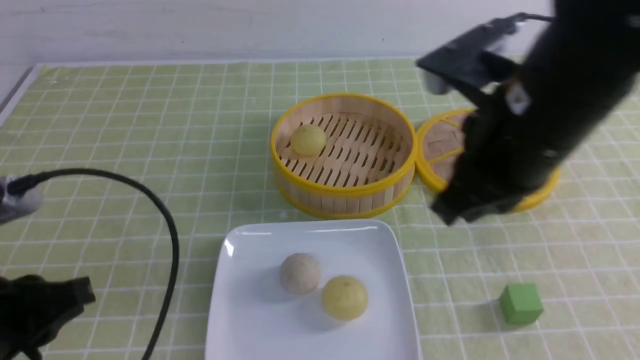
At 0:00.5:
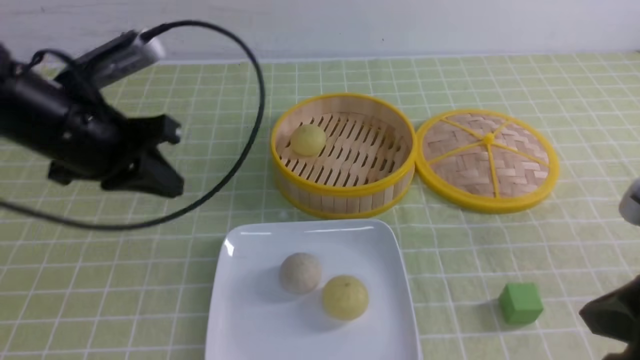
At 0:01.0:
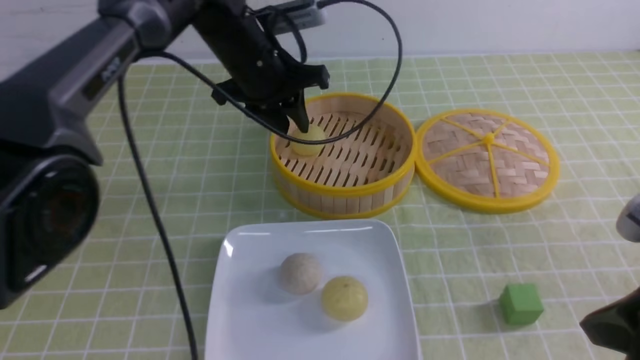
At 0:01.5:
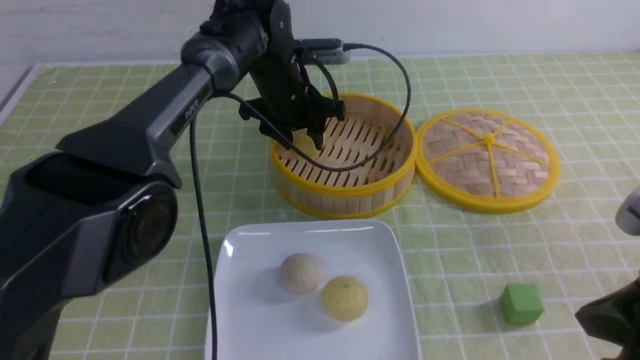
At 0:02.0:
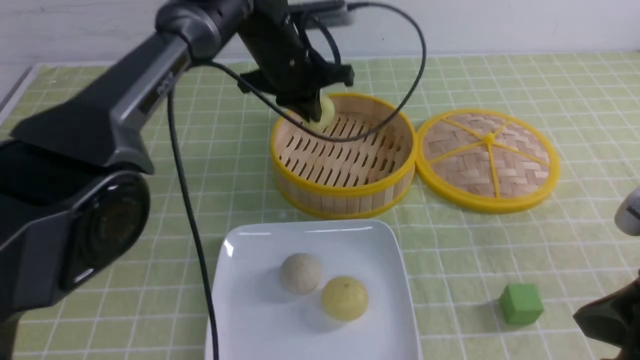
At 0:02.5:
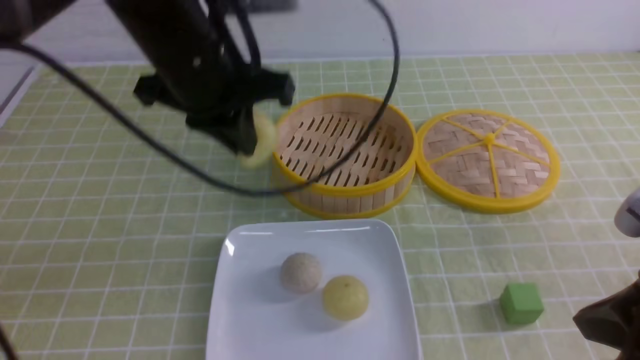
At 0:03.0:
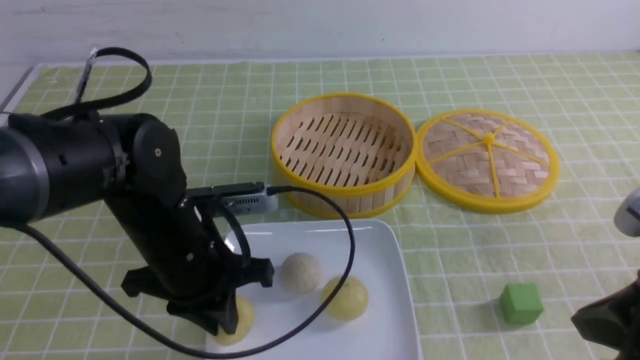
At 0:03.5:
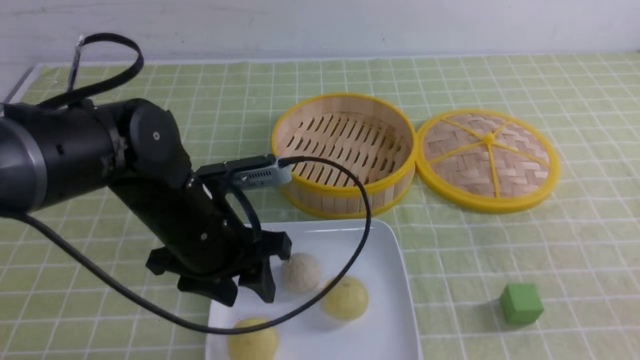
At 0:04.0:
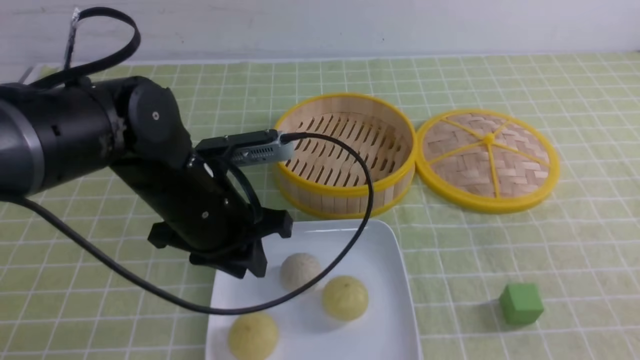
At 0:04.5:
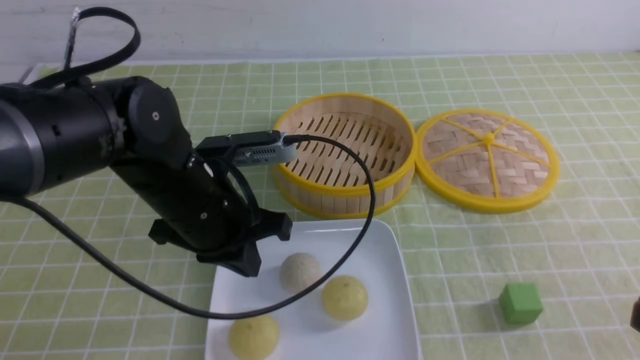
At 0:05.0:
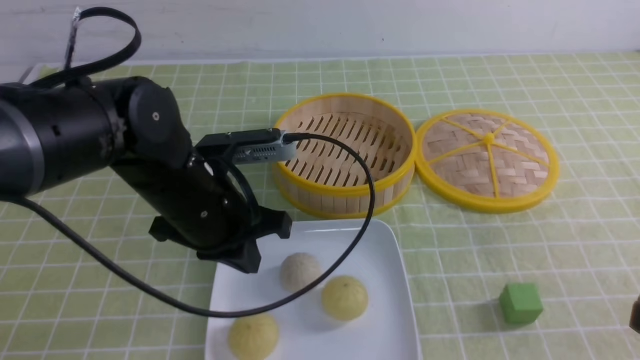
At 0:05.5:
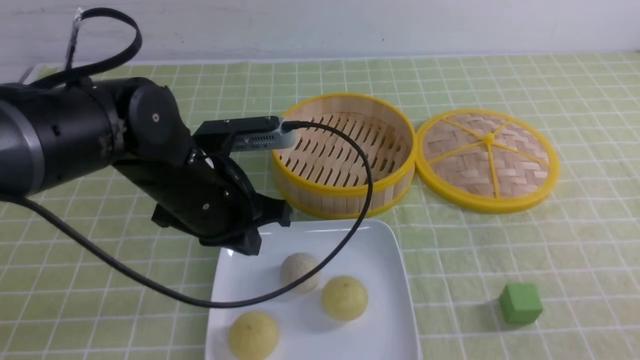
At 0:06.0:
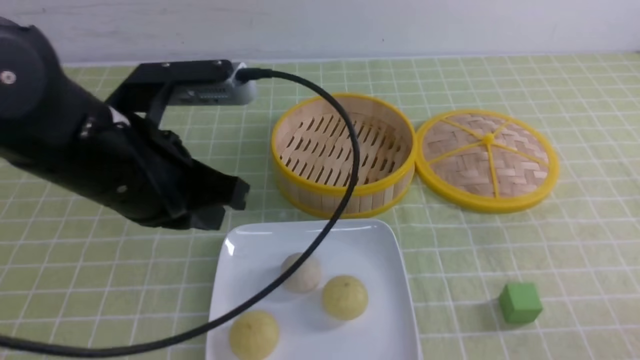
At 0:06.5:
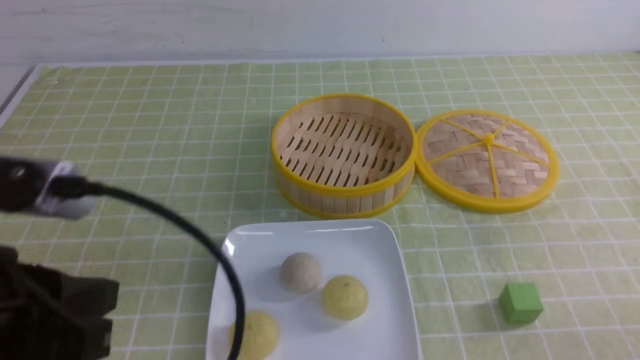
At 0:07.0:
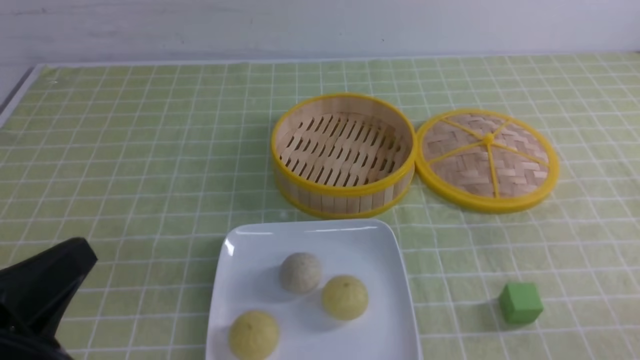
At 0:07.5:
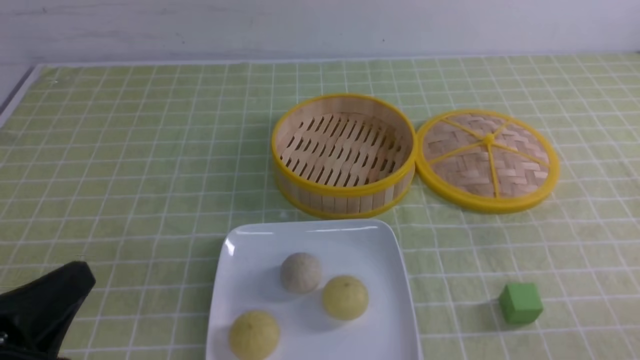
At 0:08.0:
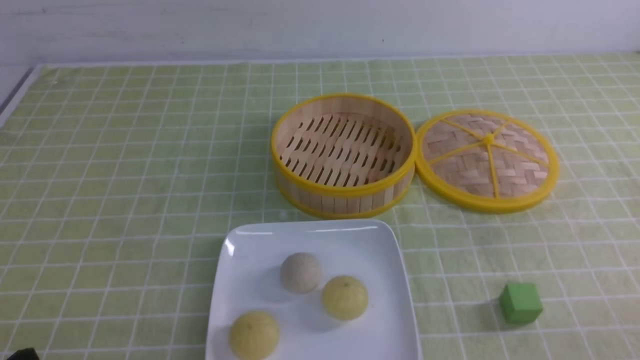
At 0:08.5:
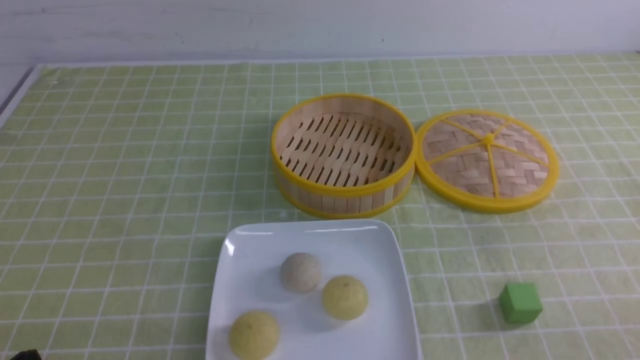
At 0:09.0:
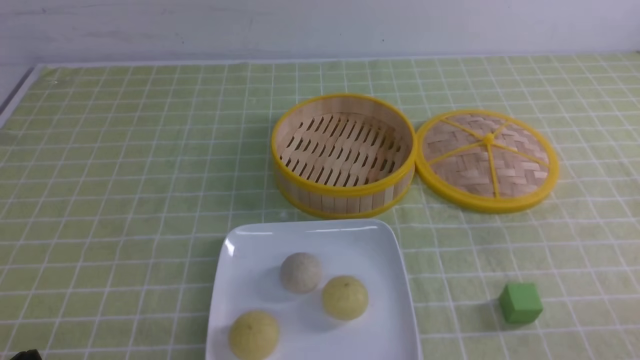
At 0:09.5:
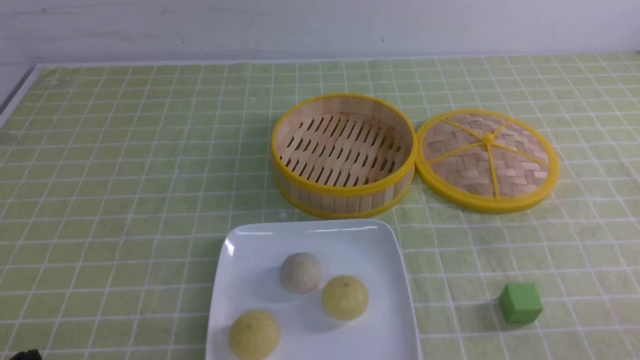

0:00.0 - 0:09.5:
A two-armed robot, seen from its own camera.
Step, 0:00.0 - 0:01.5: use the left arm to grab the steamed stuffed bun that is closest to it.
Step, 0:02.0 - 0:03.0: use the left arm to put the steamed stuffed bun into the plate.
0:00.0 - 0:02.0: The left gripper moves forward and to the right, roughly 35 cm, and opens, then closes again; the right gripper heads backward, to the right and downward, covering roughly 15 cm.
0:02.0 - 0:04.0: The right gripper heads backward and to the right, covering roughly 10 cm; the left gripper heads backward and downward, covering approximately 20 cm, and opens up.
0:04.0 - 0:05.5: The right gripper travels downward by approximately 5 cm, while the left gripper closes its fingers.
0:05.5 - 0:07.5: The left gripper goes roughly 25 cm backward and to the left. Meanwhile the right gripper shifts approximately 5 cm downward.
0:07.5 - 0:09.5: The left gripper moves downward, about 10 cm.

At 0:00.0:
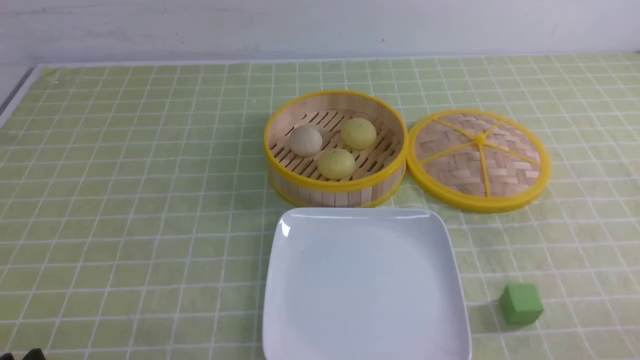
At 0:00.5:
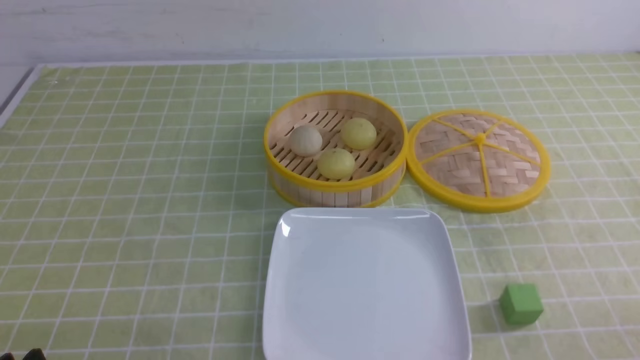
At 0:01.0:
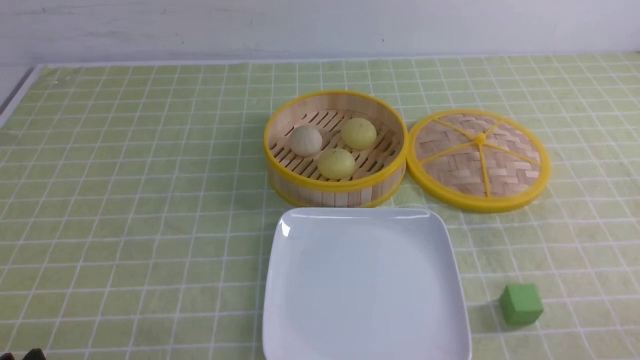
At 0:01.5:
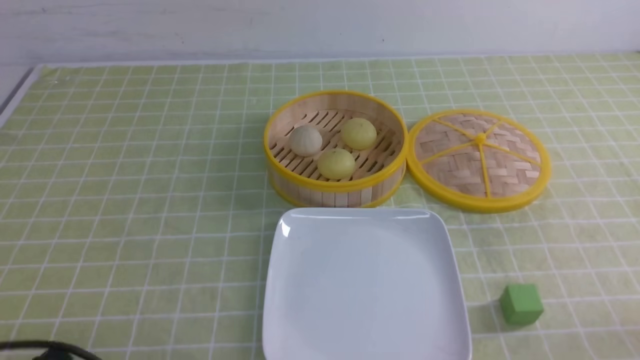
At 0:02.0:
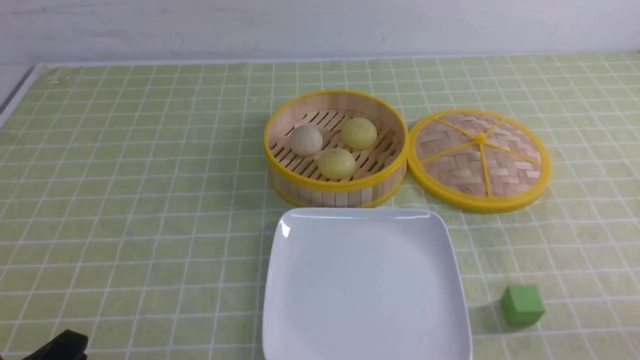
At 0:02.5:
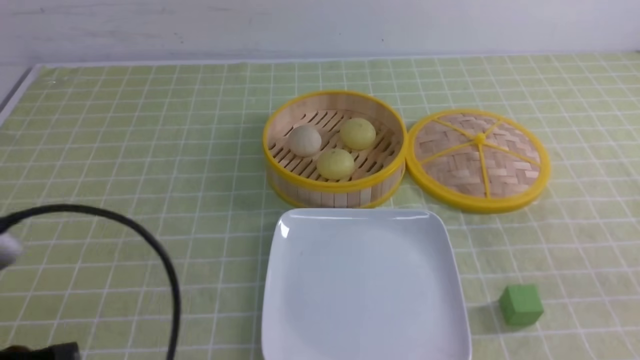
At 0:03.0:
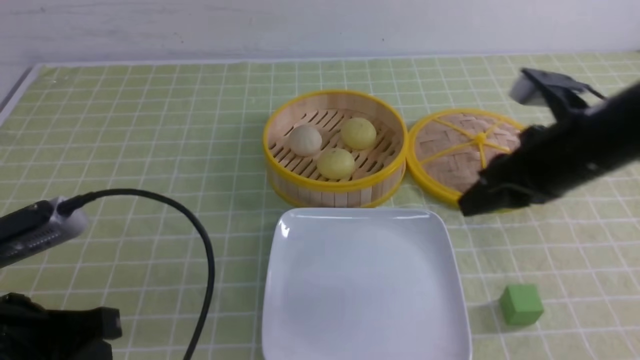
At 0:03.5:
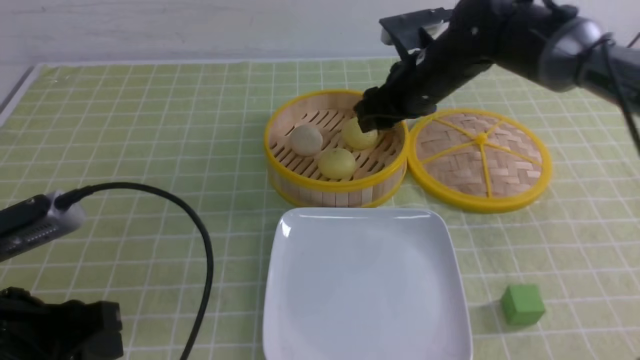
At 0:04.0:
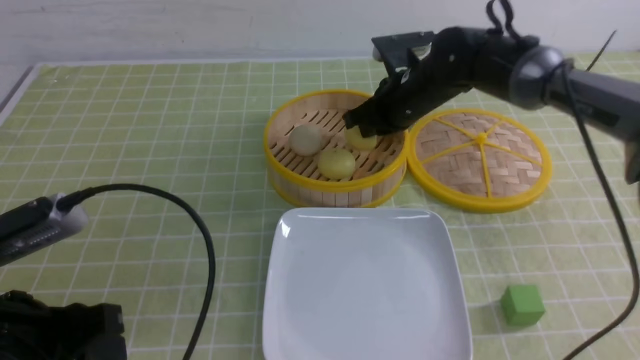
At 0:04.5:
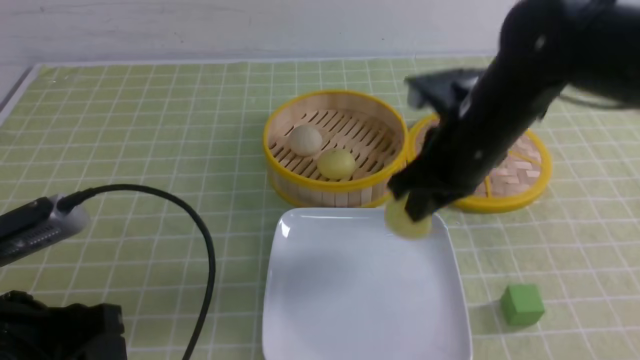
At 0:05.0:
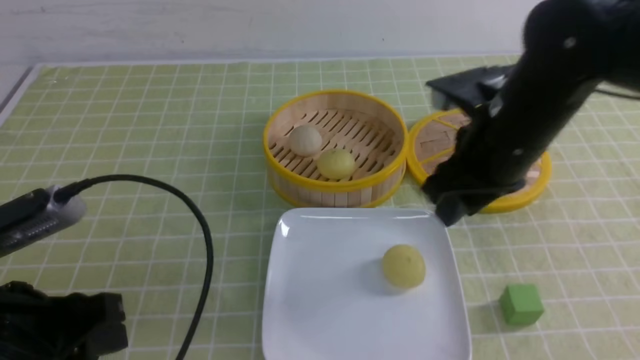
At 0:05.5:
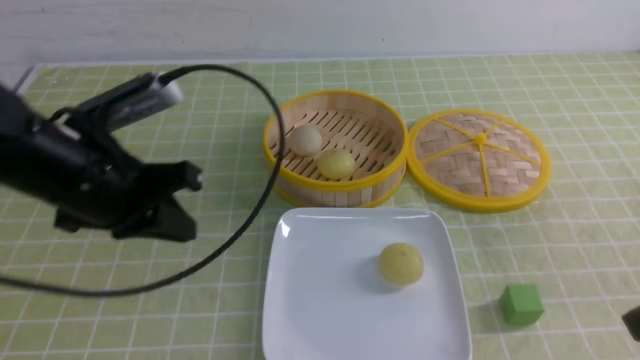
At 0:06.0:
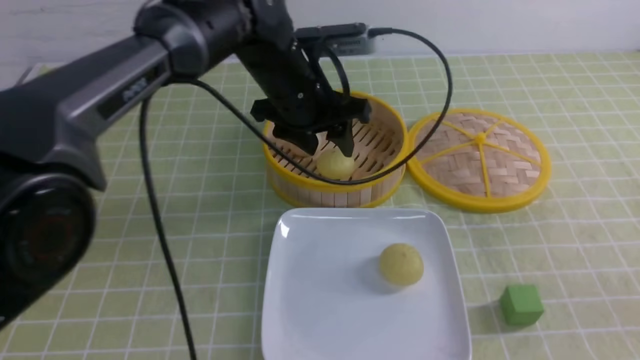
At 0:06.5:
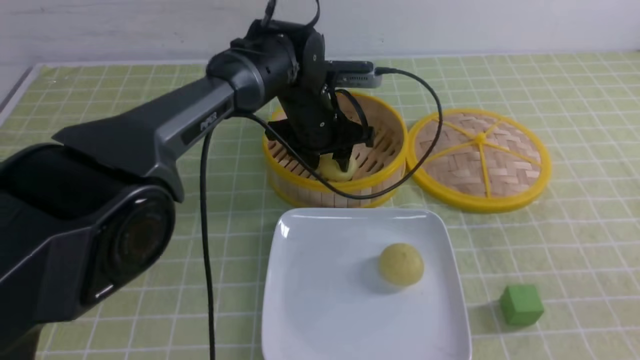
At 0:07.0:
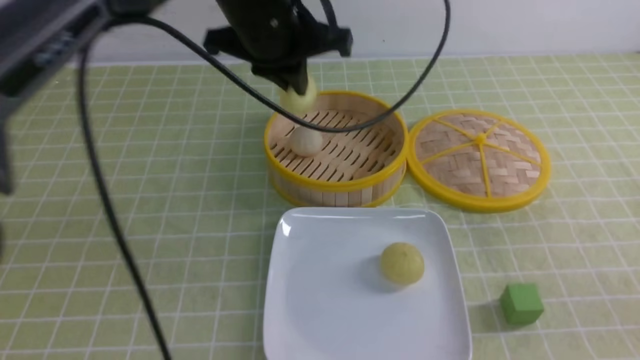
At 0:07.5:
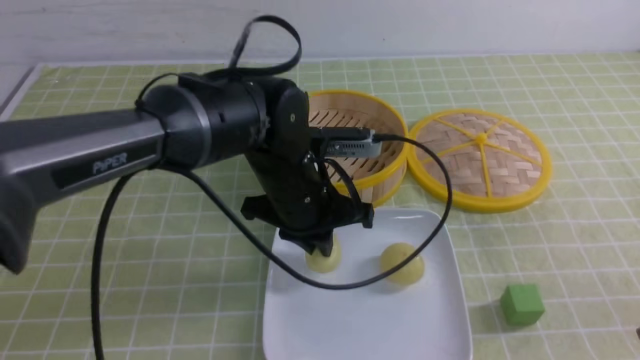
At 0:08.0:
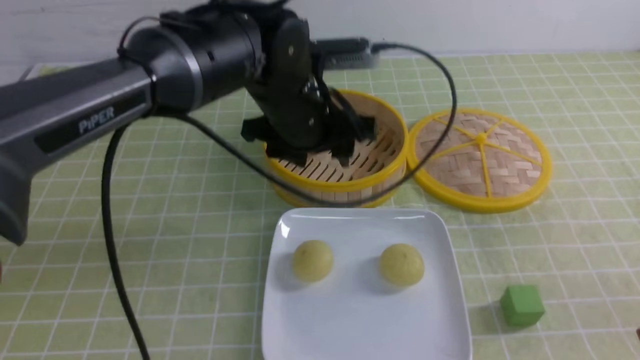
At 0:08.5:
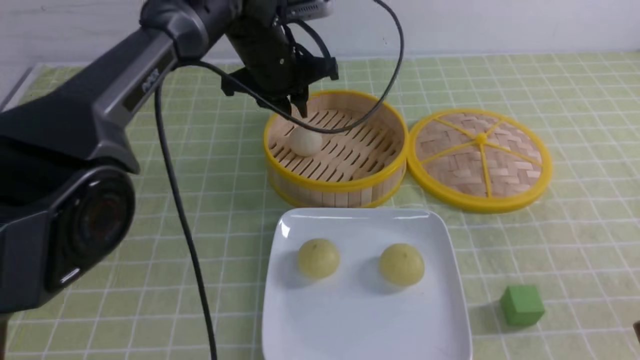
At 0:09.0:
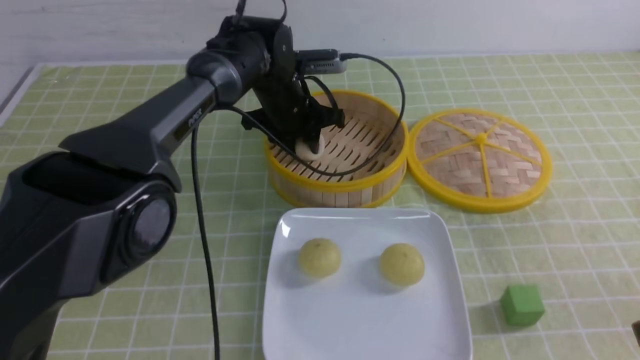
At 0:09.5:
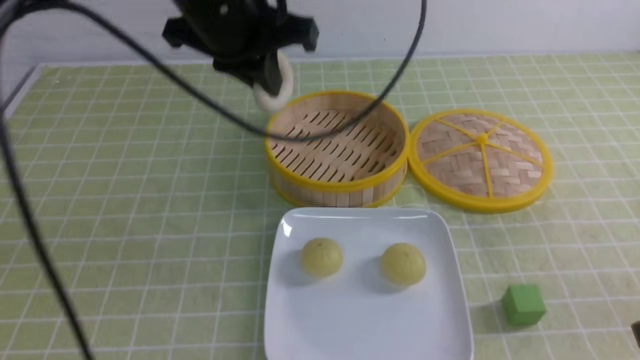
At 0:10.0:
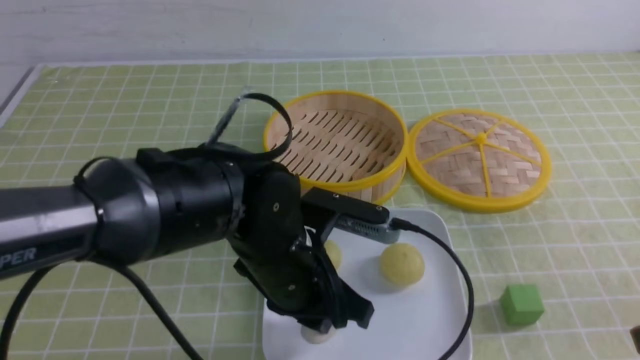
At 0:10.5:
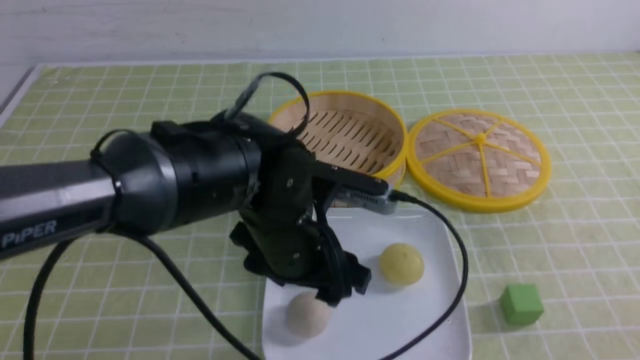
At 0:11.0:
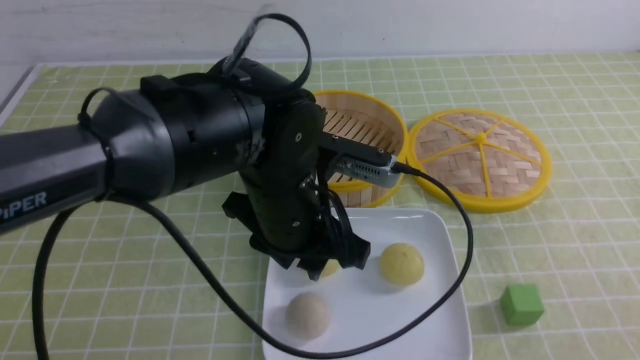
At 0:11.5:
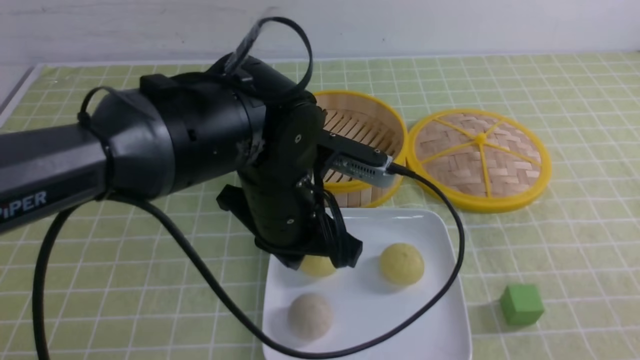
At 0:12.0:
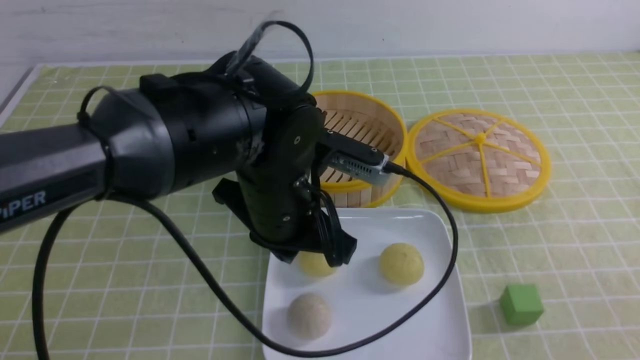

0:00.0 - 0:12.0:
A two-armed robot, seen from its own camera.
Step, 0:00.0 - 0:03.5: use the right arm to grab the steamed stuffed bun that is closest to it.
Step, 0:05.0 - 0:06.5: use the left arm to grab the steamed stuffed bun that is closest to it.
Step, 0:07.0 - 0:07.5: use the left arm to put the steamed stuffed bun into the plate.
Step, 0:08.0 - 0:09.0: use the left arm to grab the steamed stuffed bun that is closest to it.
Step, 0:09.5 - 0:10.0: use the left arm to put the steamed stuffed bun into the plate.
0:02.0 - 0:04.0: The left gripper shifts roughly 10 cm forward, while the right gripper goes approximately 40 cm forward and to the left, and opens and closes again.
0:04.0 - 0:06.0: The left gripper travels forward and to the right by roughly 35 cm, while the right gripper is displaced backward and to the right by about 40 cm, and opens, then closes again.
0:06.0 - 0:08.0: The left gripper goes backward and returns, roughly 10 cm each way, and closes, then reopens.
0:08.0 - 0:10.0: The left gripper goes approximately 15 cm backward and downward.
0:10.0 - 0:12.0: The right gripper travels backward by approximately 5 cm. The left gripper is displaced upward by about 5 cm, and closes its fingers.
